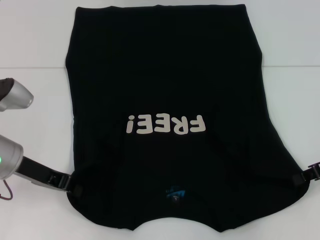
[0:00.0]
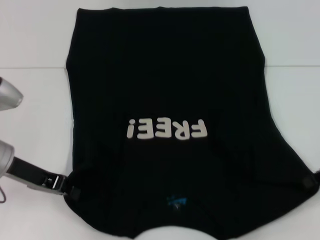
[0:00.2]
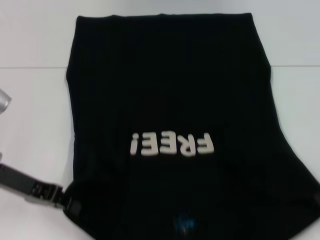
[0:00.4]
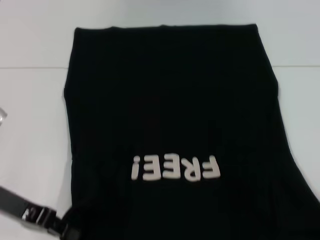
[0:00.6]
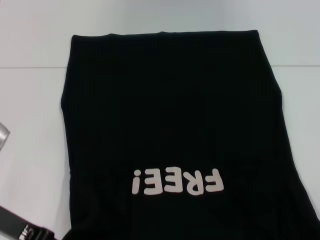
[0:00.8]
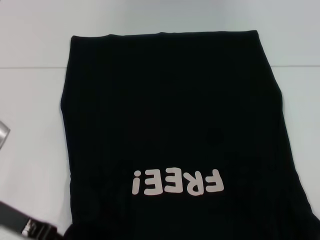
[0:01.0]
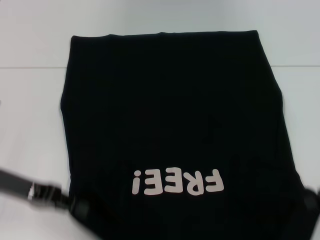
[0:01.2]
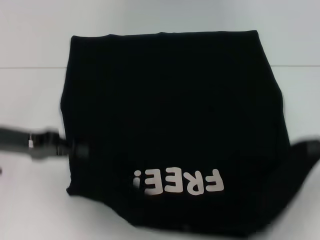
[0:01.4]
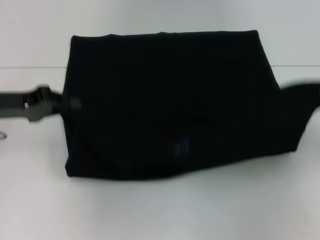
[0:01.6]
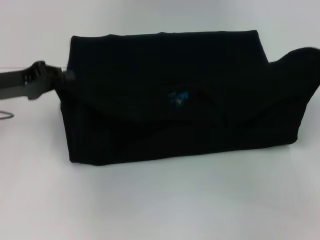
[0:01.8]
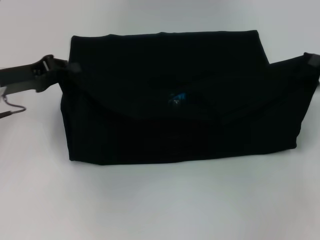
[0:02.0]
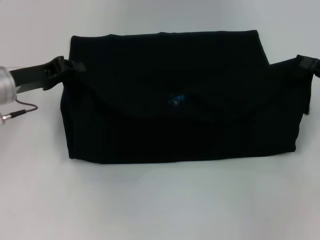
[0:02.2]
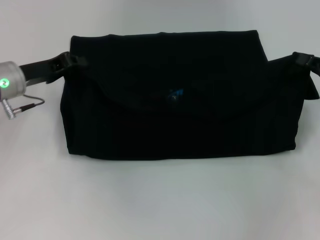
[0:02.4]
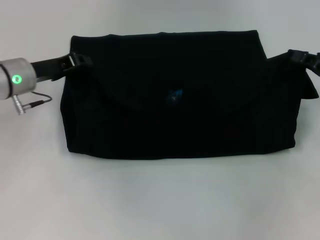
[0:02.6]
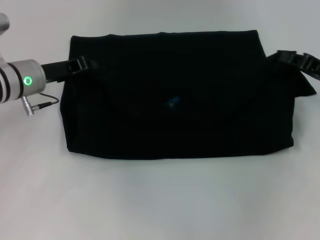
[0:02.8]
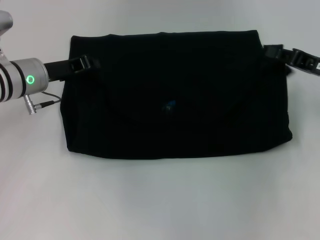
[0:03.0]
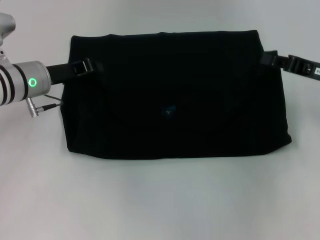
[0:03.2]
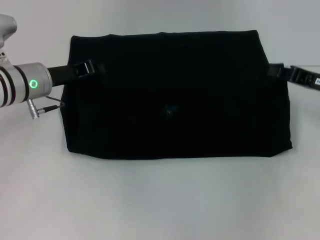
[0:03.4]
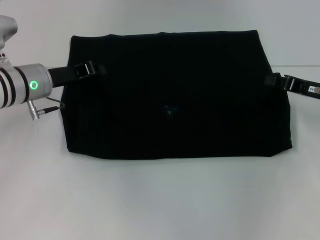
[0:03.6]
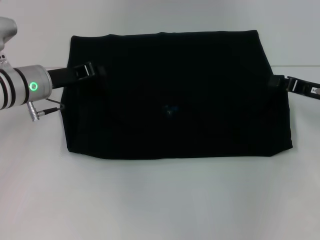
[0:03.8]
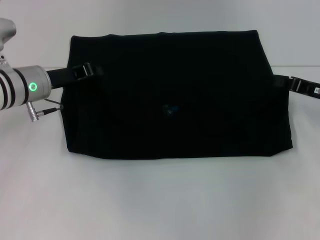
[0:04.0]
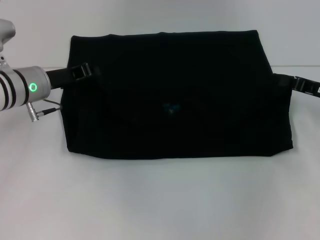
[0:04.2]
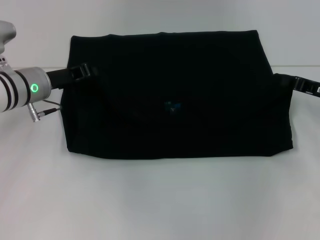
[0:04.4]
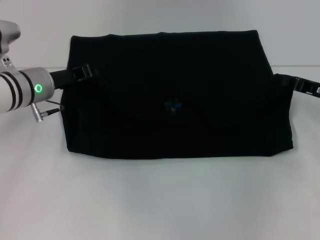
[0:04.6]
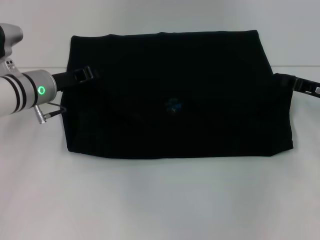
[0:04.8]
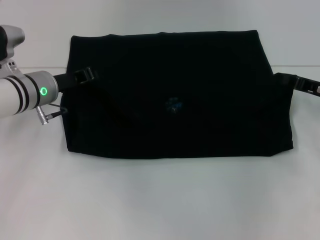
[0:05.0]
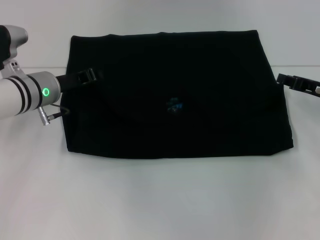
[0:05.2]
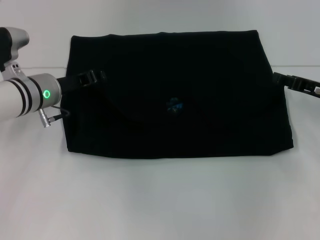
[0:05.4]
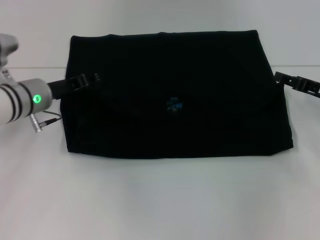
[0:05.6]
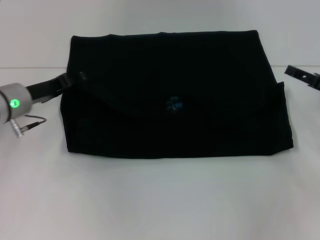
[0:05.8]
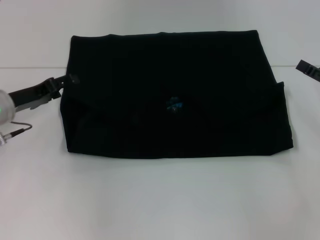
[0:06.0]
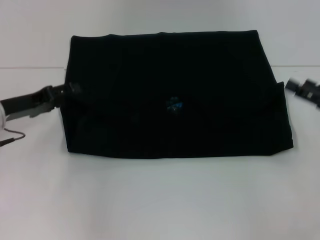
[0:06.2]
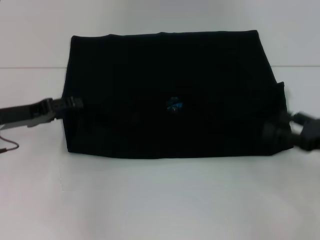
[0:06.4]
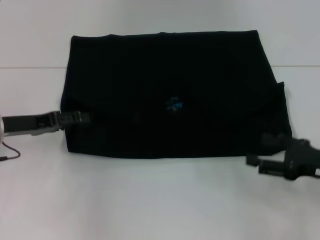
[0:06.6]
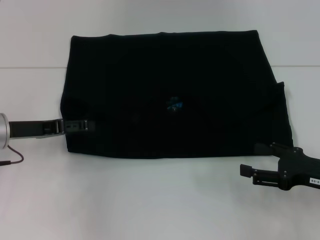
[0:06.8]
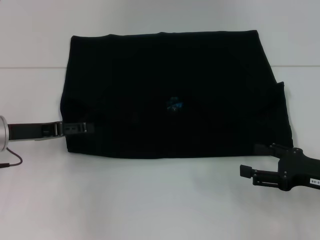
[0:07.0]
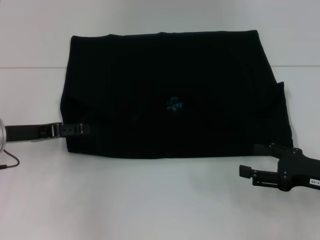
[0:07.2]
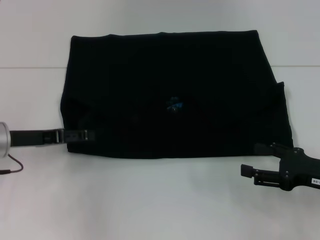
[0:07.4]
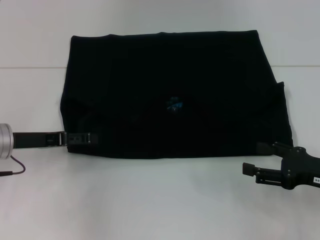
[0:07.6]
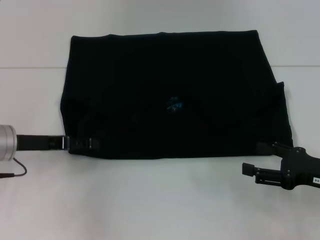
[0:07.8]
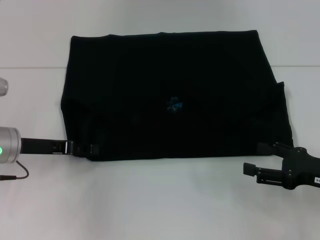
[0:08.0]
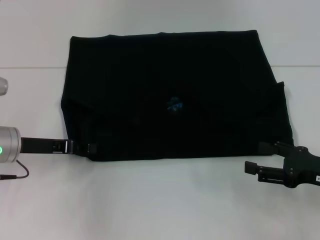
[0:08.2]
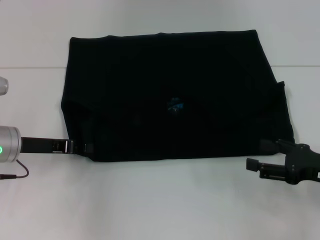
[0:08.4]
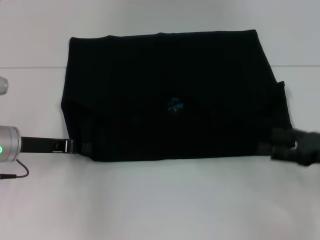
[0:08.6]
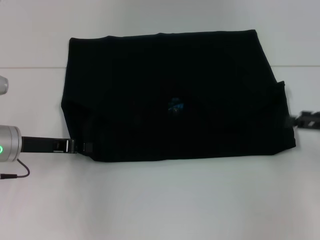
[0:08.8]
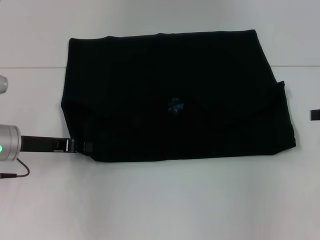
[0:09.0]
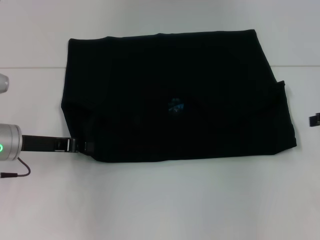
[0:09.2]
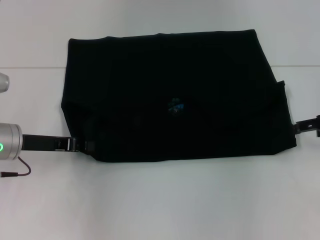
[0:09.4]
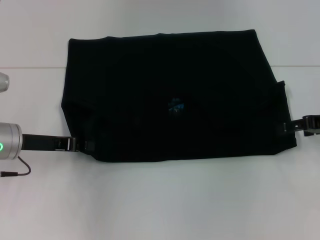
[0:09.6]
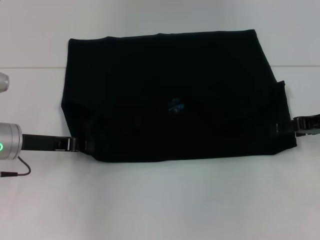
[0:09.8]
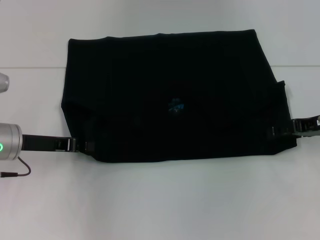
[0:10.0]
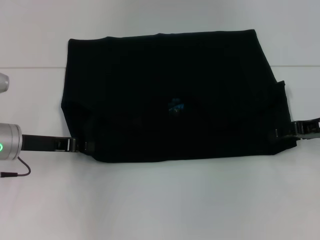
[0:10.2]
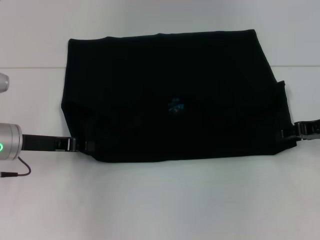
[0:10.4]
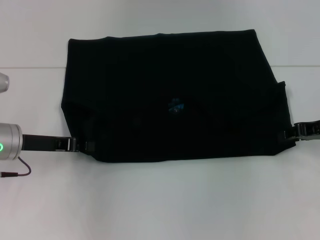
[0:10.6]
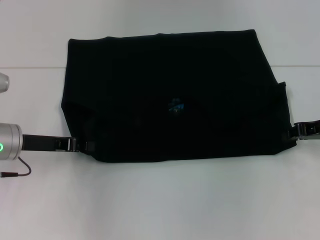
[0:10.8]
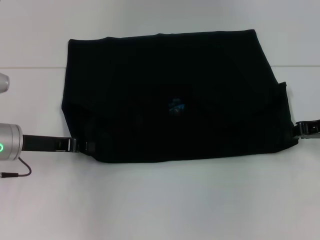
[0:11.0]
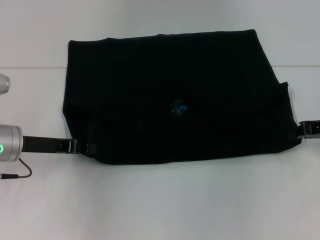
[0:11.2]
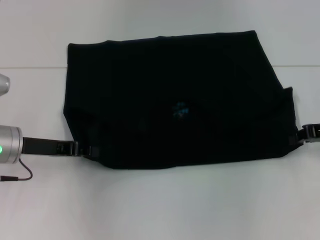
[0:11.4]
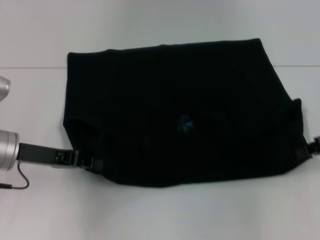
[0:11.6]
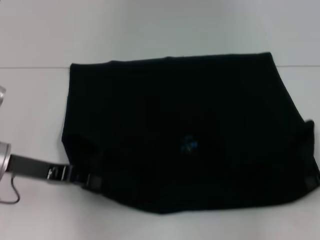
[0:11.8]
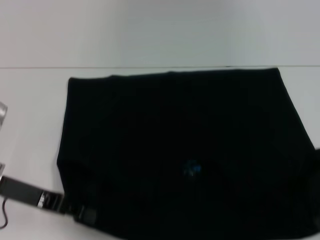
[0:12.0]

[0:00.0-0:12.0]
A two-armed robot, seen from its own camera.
Step, 0.4 to 6.2 s: Fold the clothes with your left hand.
Step, 0.4 to 6.2 s: Fold the clothes with your right hand.
0.0 to 1.6 s: The left gripper is displaced to the left by about 5 cm, and moves some 5 cm backward and comes back, while the right gripper goes roughly 10 cm to the right and upward.
1.6 to 3.0 s: The right gripper is displaced to the left and forward by roughly 10 cm; the left gripper goes approximately 10 cm forward and to the right.
4.4 to 6.0 s: The left gripper is displaced to the left by approximately 5 cm, and opens up. The right gripper moves backward, roughly 5 cm, and opens its fingers.
6.0 to 7.6 s: The right gripper is displaced backward by approximately 5 cm.
7.6 to 9.0 s: The right gripper shifts roughly 15 cm upward, to the right and forward; the left gripper closes.
9.0 to 10.4 s: The right gripper heads to the left, covering some 5 cm.
10.4 to 12.0 s: The left gripper heads backward, covering some 5 cm; the right gripper moves backward, approximately 10 cm, and closes its fingers.

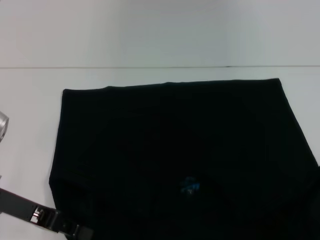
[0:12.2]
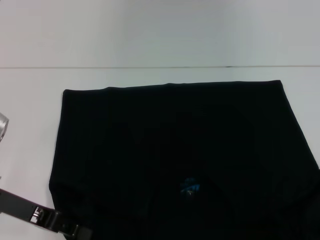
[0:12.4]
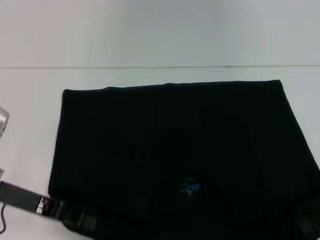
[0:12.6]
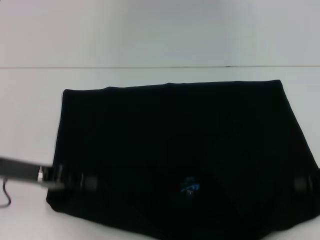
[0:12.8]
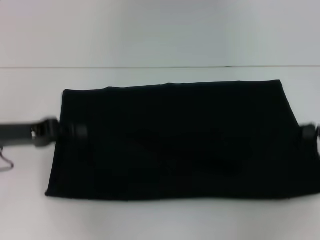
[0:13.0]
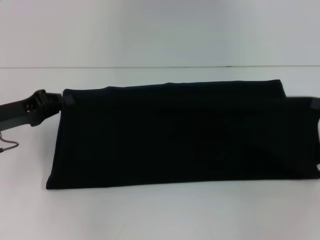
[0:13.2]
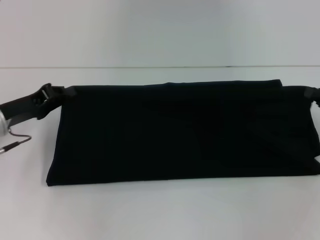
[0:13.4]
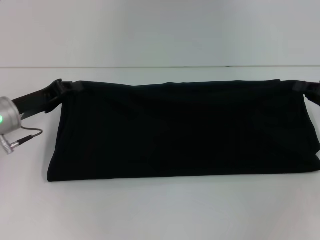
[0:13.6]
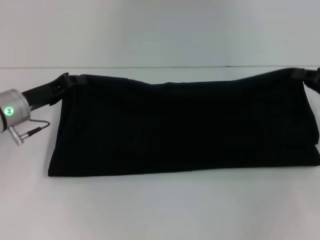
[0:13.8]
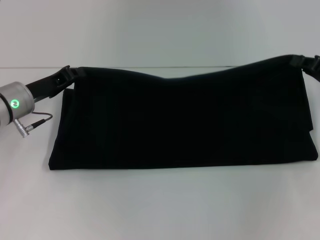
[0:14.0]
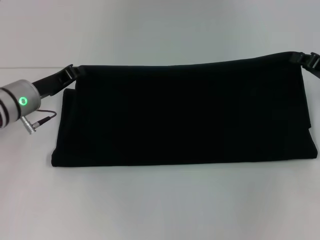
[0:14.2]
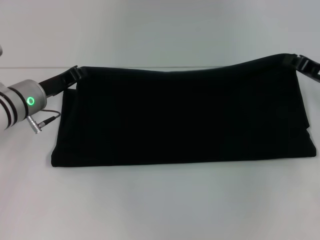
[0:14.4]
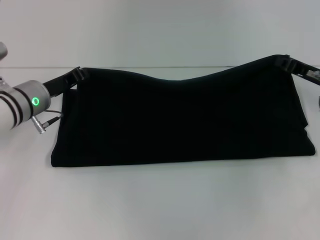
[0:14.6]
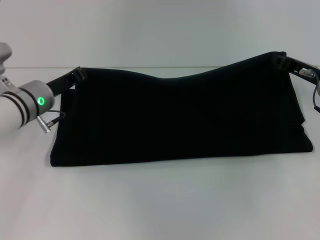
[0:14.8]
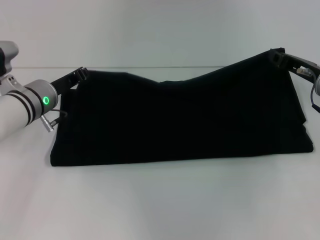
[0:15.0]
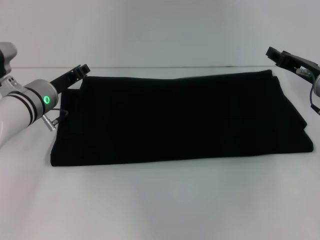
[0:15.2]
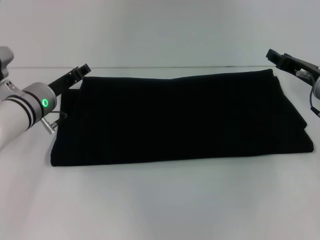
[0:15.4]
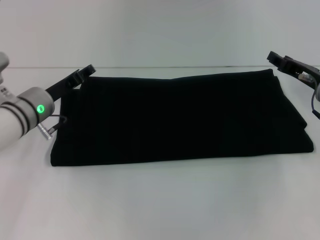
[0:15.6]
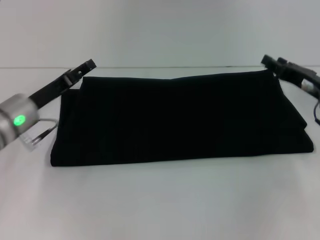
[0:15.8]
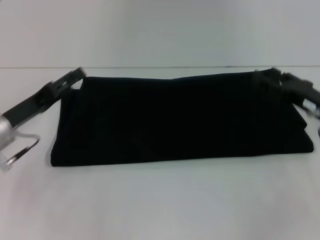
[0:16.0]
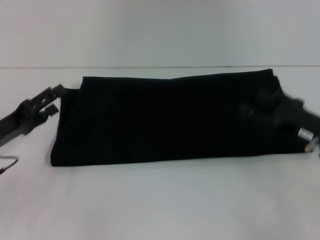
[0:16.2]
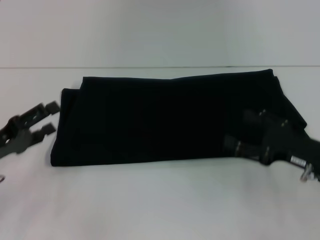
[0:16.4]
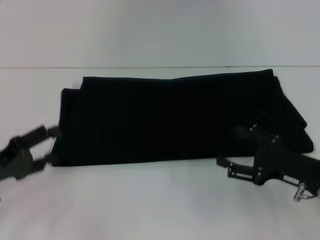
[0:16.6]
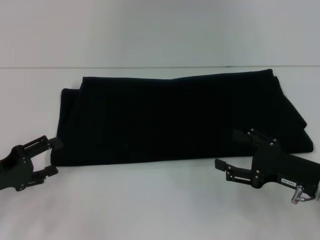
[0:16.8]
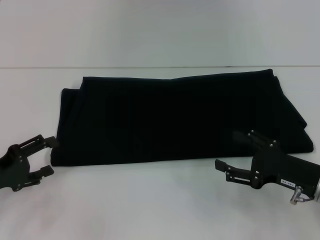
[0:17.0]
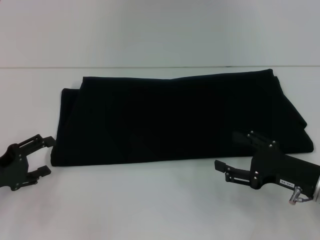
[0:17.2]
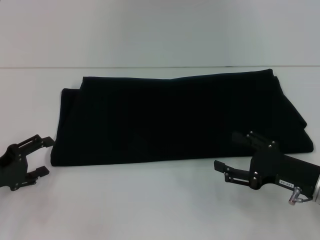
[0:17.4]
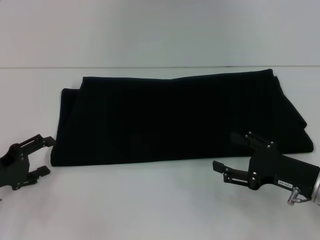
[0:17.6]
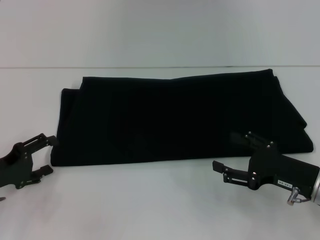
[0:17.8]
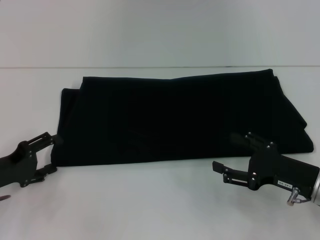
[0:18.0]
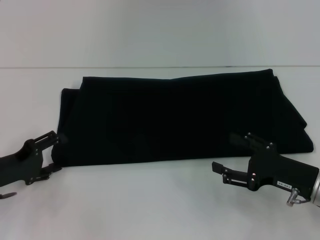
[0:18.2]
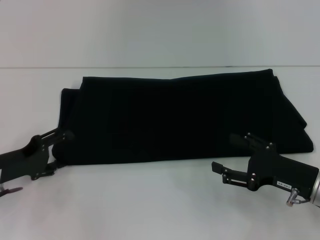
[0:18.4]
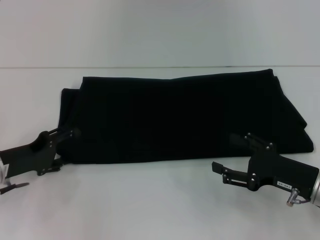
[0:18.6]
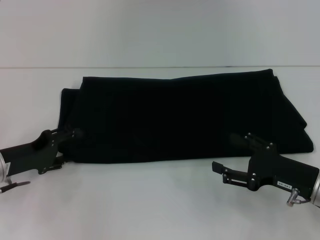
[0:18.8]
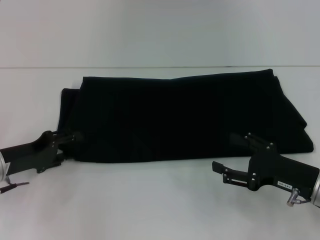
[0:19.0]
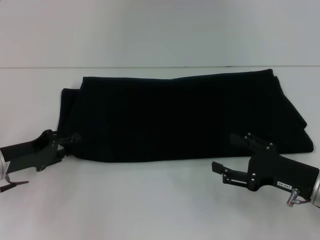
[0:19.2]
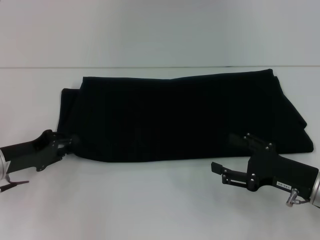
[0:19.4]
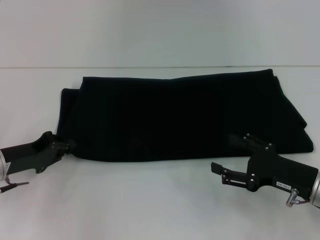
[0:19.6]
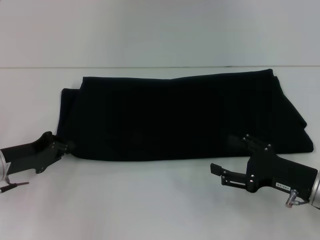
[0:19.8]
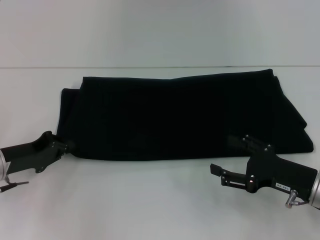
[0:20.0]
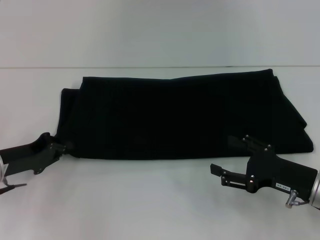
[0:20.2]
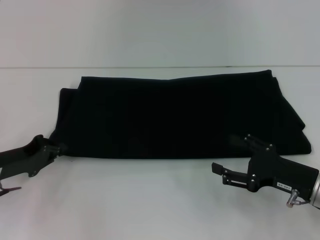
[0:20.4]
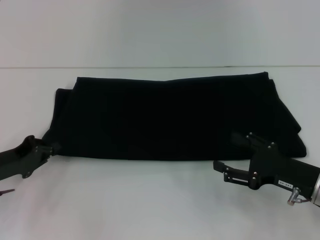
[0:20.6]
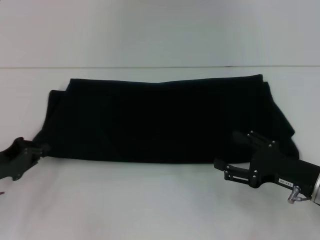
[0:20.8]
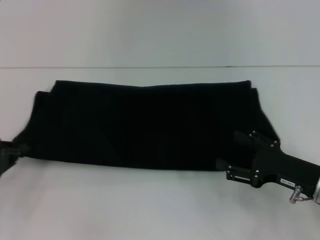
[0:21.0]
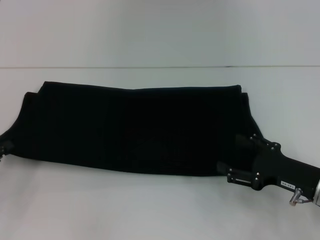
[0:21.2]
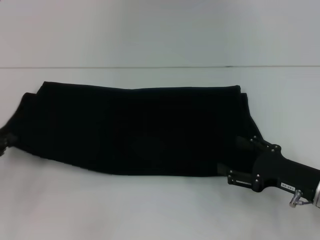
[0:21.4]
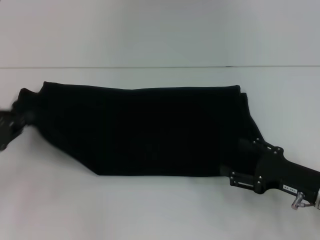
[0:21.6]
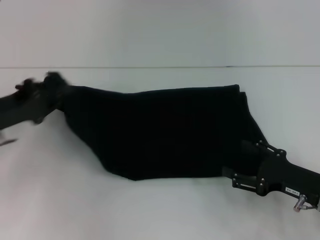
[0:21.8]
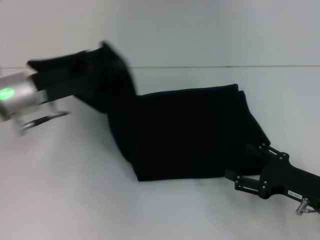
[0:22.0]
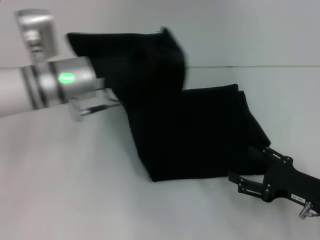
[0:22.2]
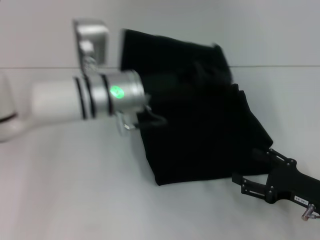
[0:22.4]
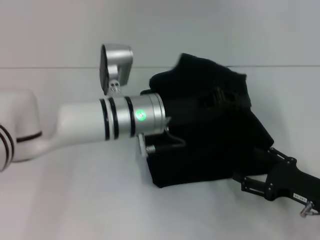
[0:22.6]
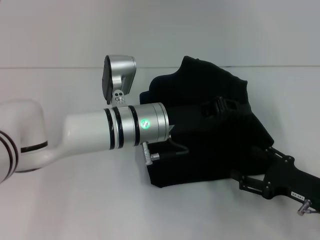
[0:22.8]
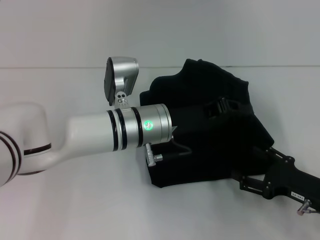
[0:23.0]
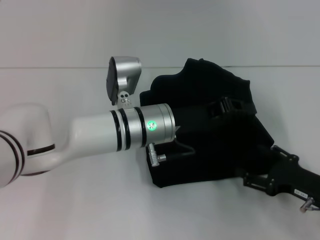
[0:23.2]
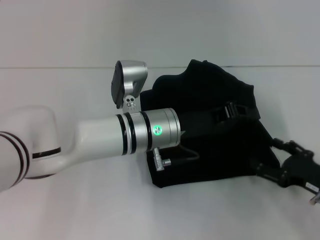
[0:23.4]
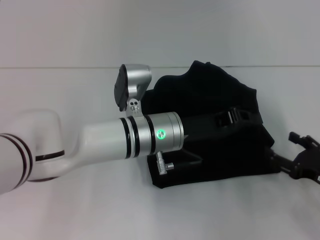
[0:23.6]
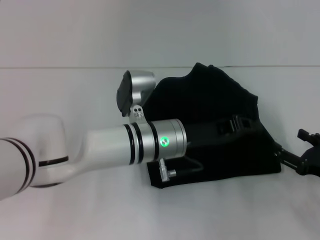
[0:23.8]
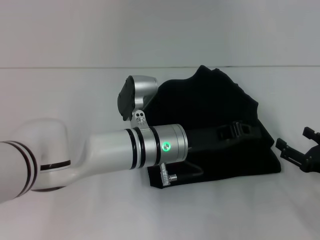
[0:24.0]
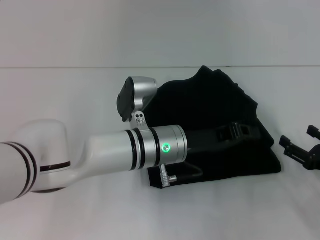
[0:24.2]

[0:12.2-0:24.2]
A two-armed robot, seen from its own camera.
Step, 12.4 to 16.0 s: Fold the clothes with your right hand.
12.2 to 13.8 s: The two grippers go roughly 10 cm forward.
13.8 to 15.2 s: The left gripper moves about 5 cm. The right gripper is displaced to the left by some 5 cm.
15.2 to 16.6 s: The left gripper goes approximately 20 cm backward and to the left, and opens; the right gripper heads backward, covering roughly 15 cm, and opens up.
16.6 to 18.2 s: The grippers make only small movements.
18.2 to 19.8 s: The left gripper closes up.
19.8 to 21.2 s: The left gripper heads to the left, covering roughly 10 cm.
21.2 to 22.6 s: The left gripper travels to the right by about 30 cm.
22.6 to 24.2 s: The left gripper shifts by some 5 cm.
